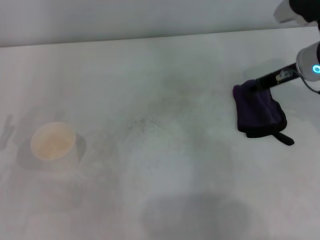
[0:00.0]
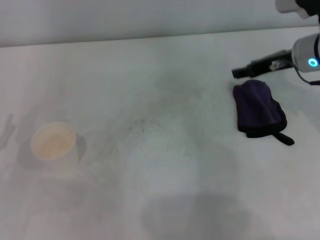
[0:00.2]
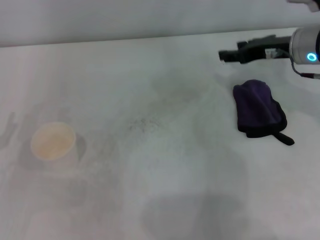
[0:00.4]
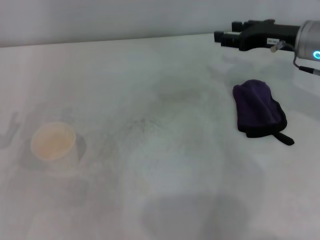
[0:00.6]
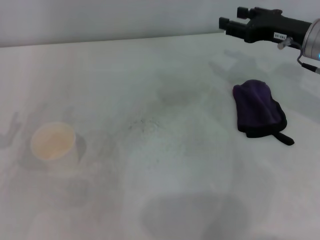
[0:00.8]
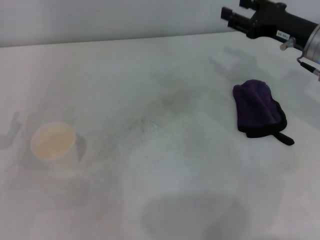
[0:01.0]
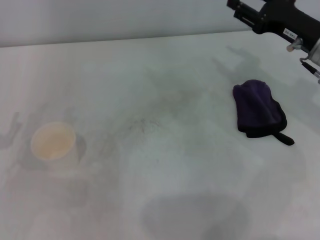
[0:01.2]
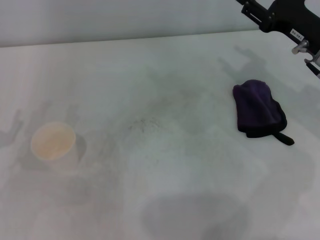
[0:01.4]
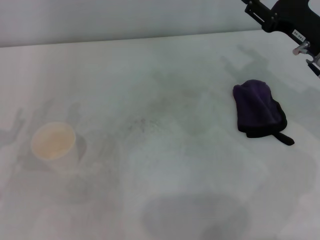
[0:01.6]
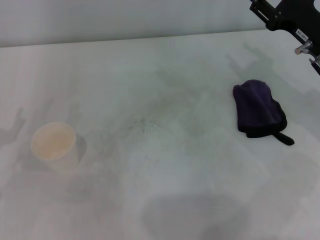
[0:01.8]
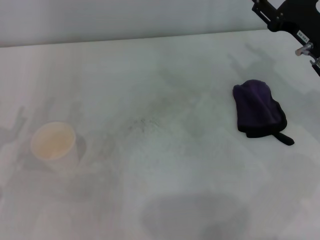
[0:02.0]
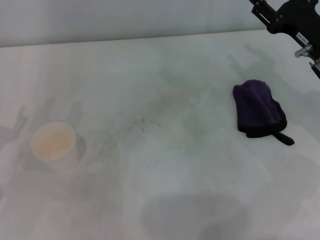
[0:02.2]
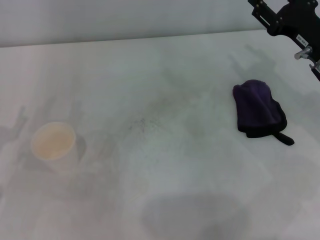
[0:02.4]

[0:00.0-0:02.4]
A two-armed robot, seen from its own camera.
0:00.0 to 0:01.2: The right gripper opens up.
0:01.2 to 0:02.4: There are only small adjustments of the grippers.

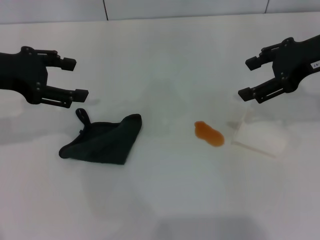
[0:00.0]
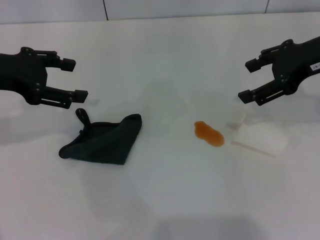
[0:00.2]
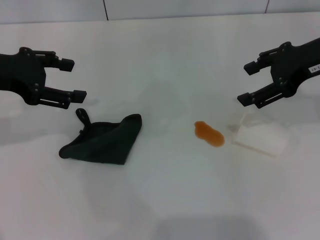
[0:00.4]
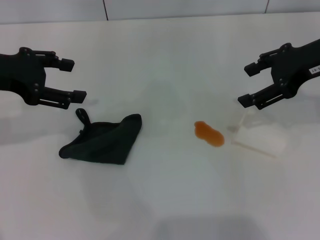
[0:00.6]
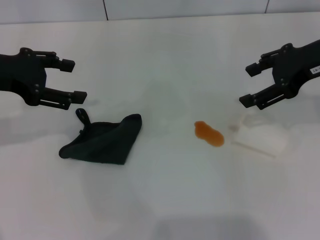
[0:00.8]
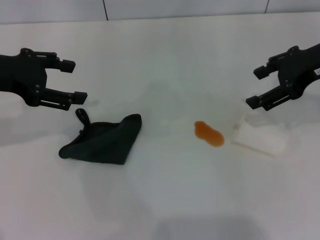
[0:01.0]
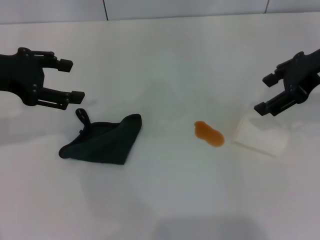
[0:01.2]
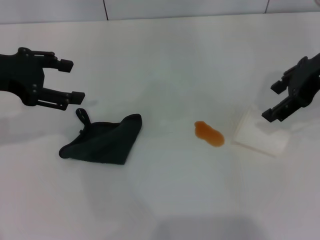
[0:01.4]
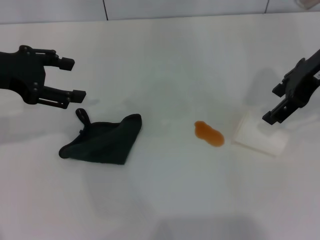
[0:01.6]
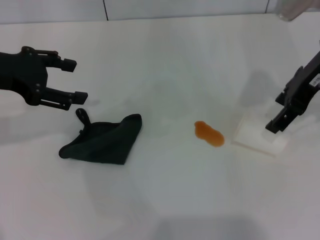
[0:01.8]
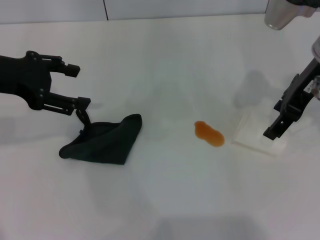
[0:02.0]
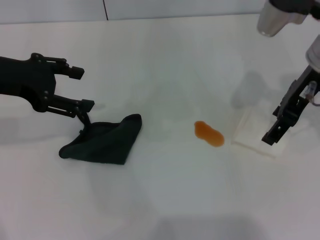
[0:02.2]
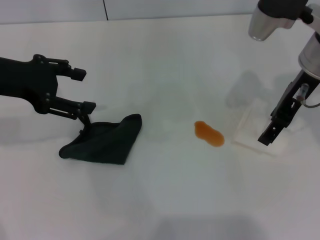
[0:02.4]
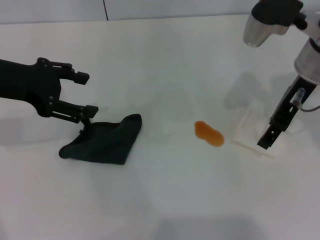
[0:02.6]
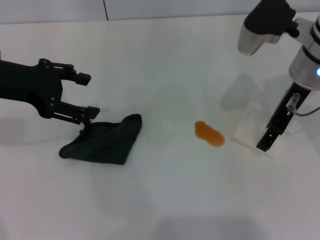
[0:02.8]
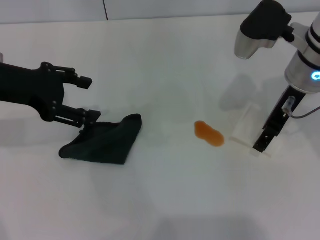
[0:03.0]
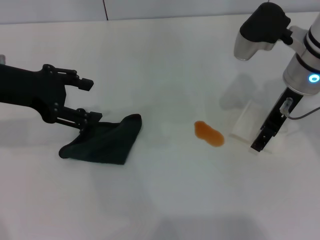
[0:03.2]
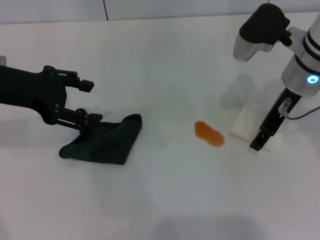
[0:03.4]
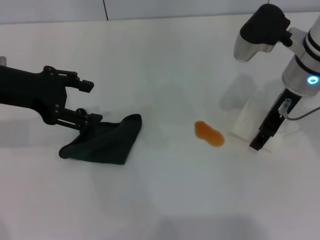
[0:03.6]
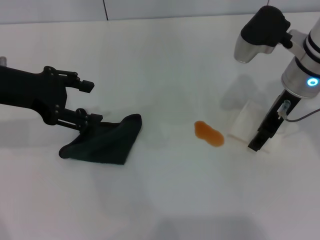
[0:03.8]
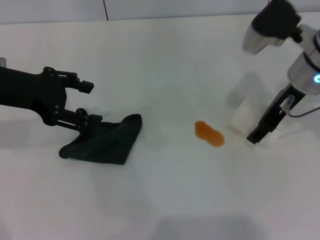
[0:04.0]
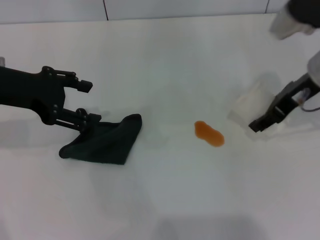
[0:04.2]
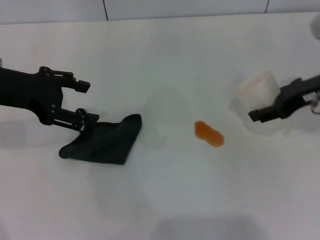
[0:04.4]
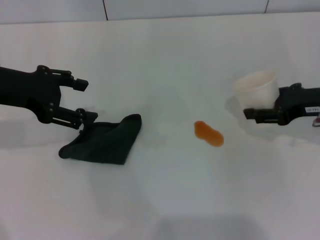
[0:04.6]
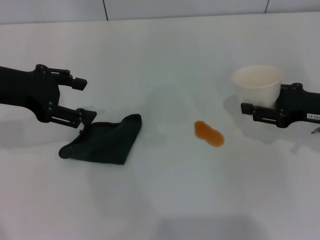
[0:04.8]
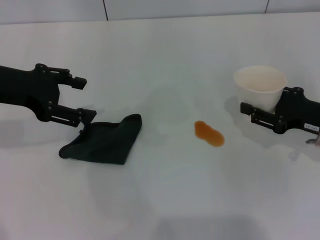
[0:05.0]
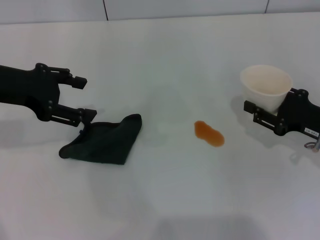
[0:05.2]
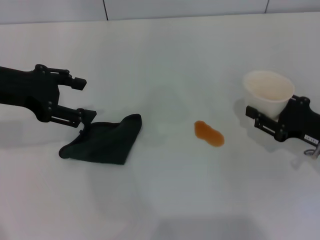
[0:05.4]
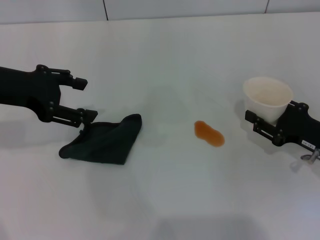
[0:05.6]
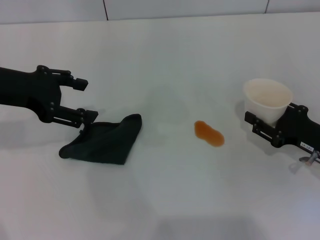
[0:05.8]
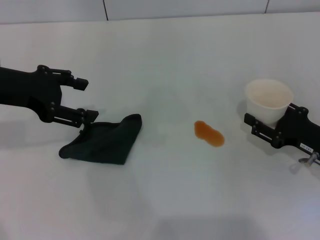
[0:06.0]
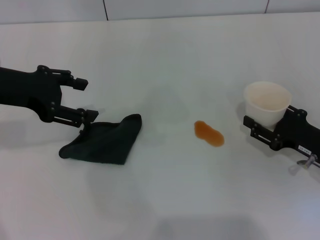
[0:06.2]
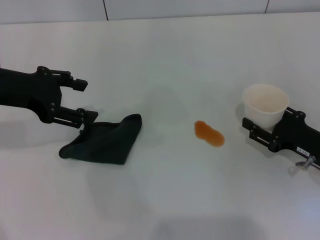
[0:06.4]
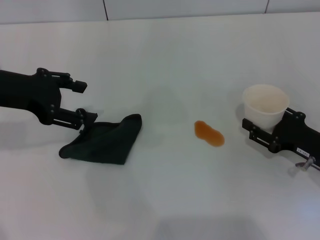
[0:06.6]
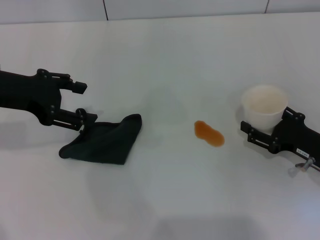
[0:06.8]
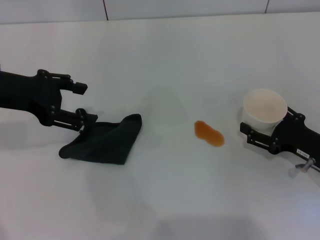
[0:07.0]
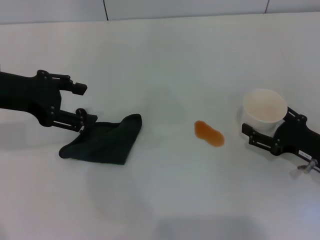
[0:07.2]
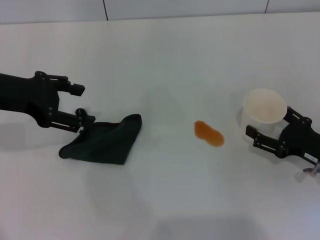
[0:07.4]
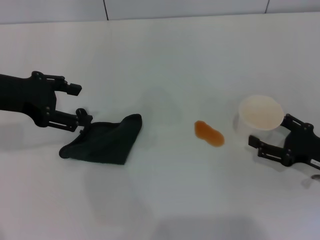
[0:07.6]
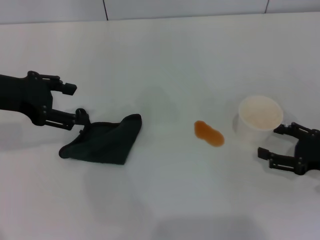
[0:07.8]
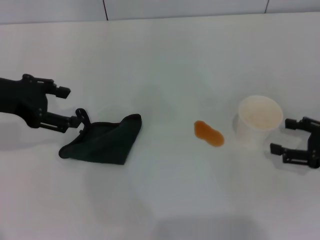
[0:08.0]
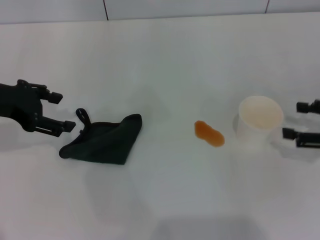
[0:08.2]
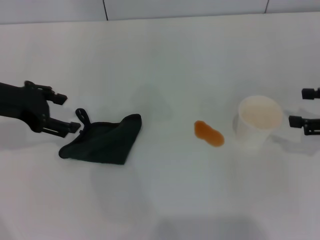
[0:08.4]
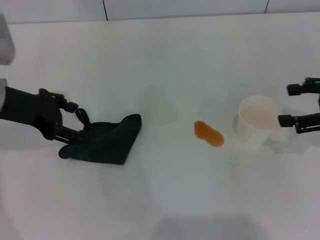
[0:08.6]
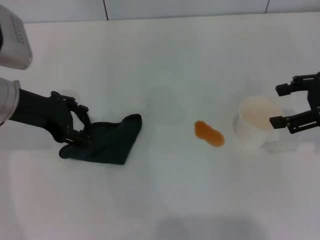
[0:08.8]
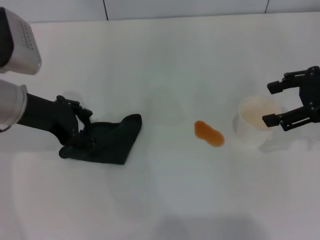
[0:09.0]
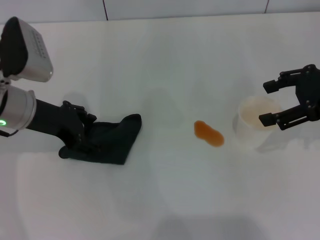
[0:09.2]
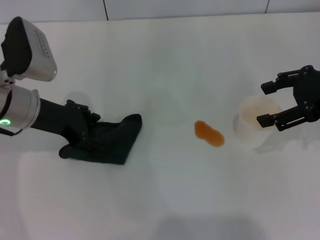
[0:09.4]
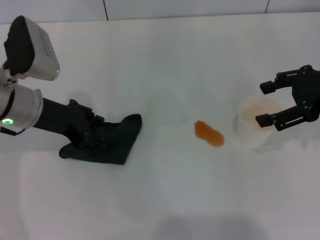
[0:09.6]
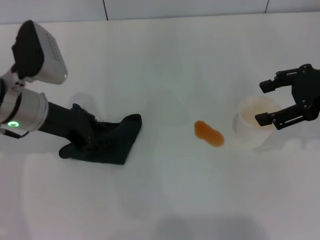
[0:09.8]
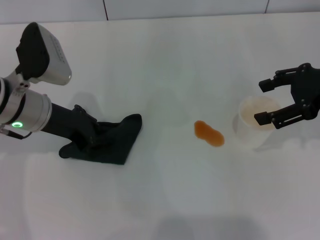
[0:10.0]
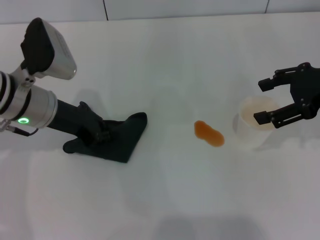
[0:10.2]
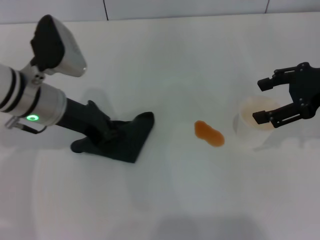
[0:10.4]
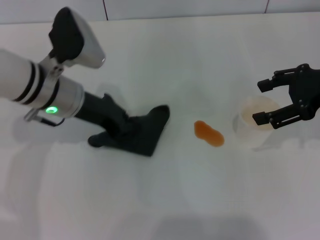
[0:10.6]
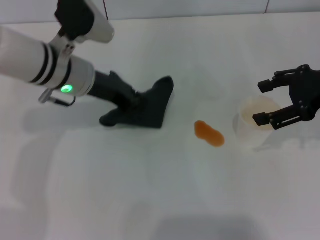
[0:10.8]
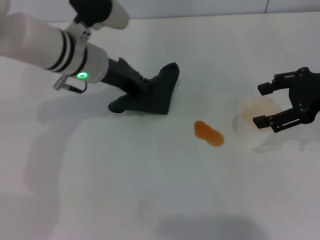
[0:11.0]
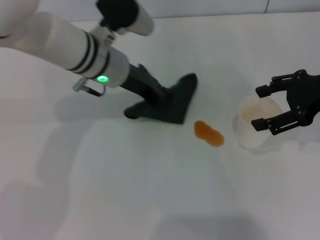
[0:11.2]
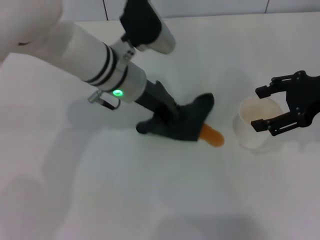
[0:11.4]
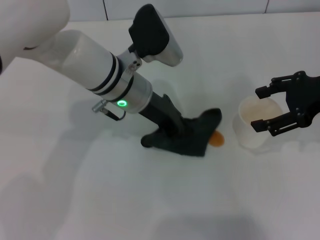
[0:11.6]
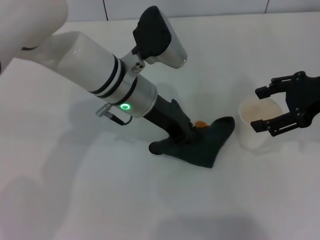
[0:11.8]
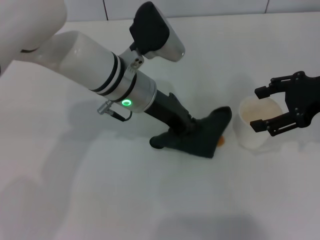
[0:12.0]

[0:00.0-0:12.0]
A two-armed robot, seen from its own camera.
Step, 0:00.0 to 0:03.4: Grasp the paper cup with the right gripper.
Step, 0:03.8 to 0:08.0: Stand the paper cup upright with the right gripper.
Step, 0:08.4 to 0:10.2: Grasp the rag with the left gripper.
0:01.6 to 0:03.0: The right gripper is displaced downward by about 5 cm.
0:03.0 to 0:04.4: The right gripper moves to the right, roughly 10 cm, and closes up.
0:04.4 to 0:06.0: The right gripper is displaced downward and backward by about 15 cm.
0:06.0 to 0:07.6: The right gripper opens.
0:07.6 to 0:09.0: The left gripper moves about 5 cm, while the right gripper heads upward and forward, covering about 20 cm.
0:09.0 to 0:10.4: The left gripper moves some 5 cm, and closes its fingers.
0:10.4 to 0:12.0: The left gripper shifts some 15 cm to the right.

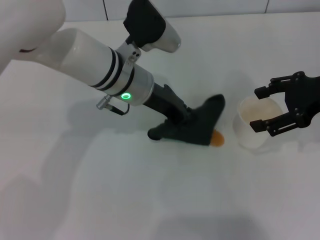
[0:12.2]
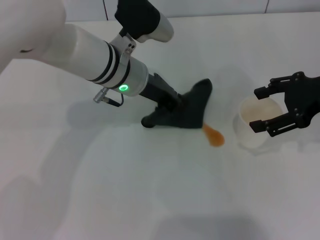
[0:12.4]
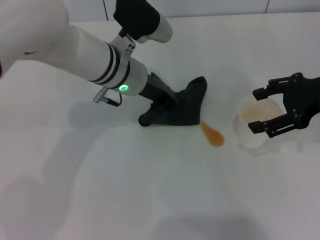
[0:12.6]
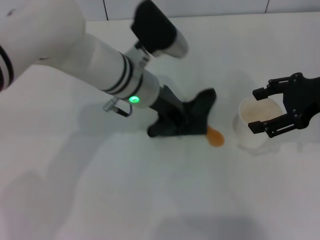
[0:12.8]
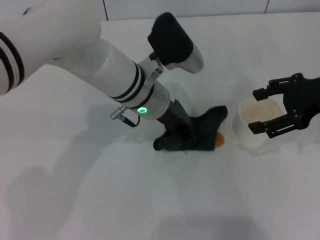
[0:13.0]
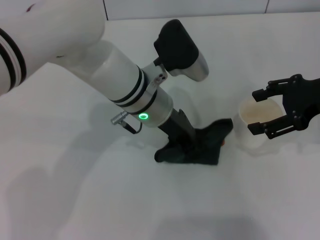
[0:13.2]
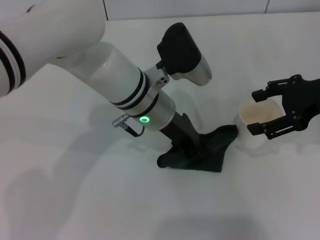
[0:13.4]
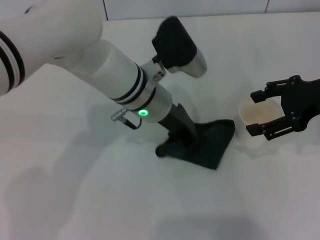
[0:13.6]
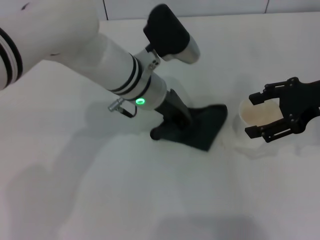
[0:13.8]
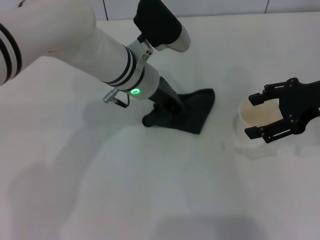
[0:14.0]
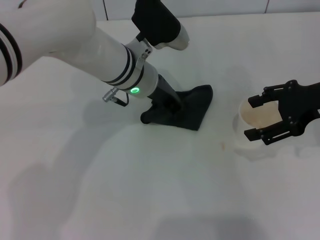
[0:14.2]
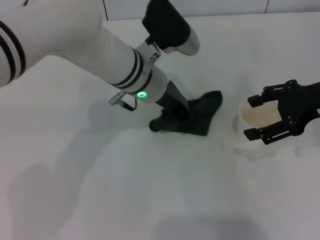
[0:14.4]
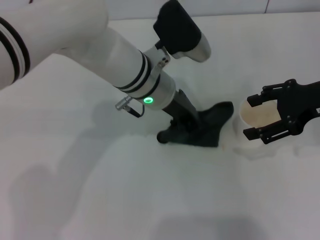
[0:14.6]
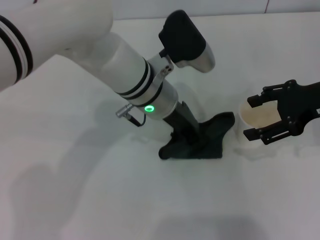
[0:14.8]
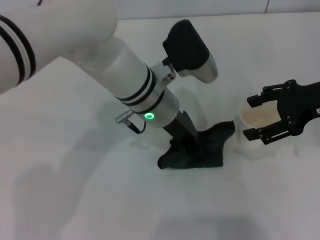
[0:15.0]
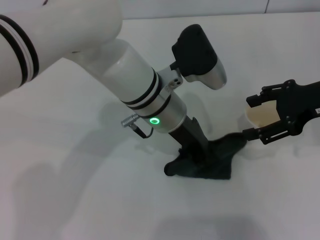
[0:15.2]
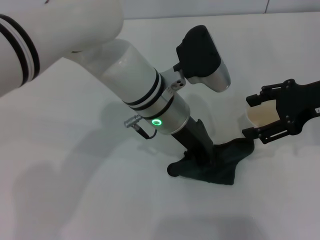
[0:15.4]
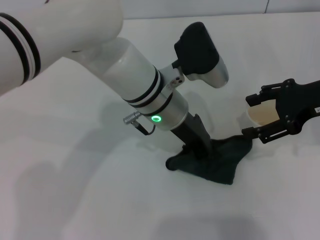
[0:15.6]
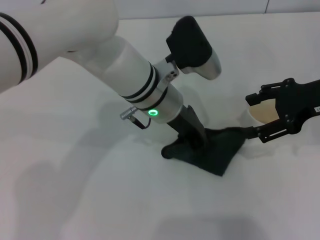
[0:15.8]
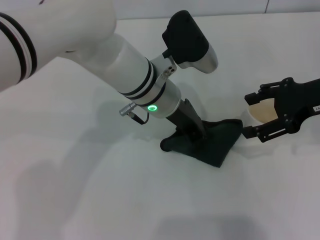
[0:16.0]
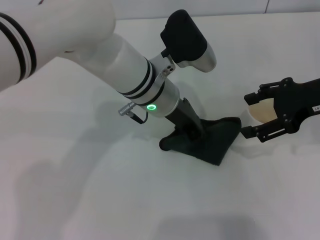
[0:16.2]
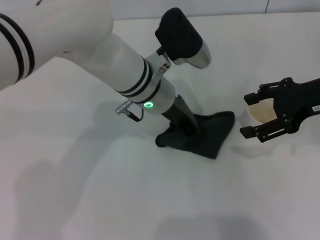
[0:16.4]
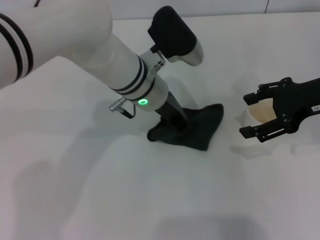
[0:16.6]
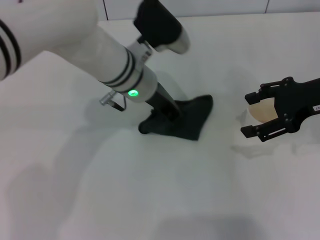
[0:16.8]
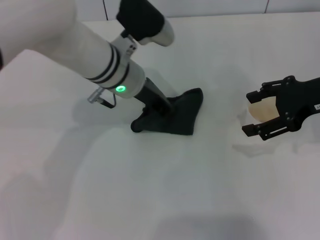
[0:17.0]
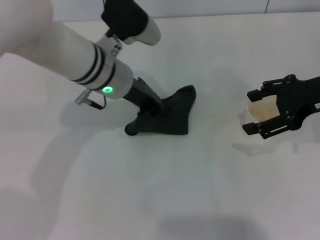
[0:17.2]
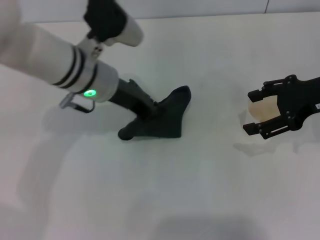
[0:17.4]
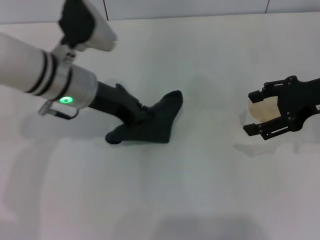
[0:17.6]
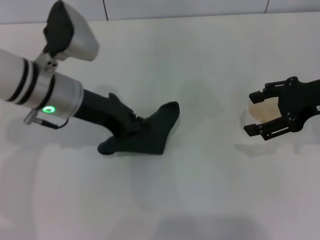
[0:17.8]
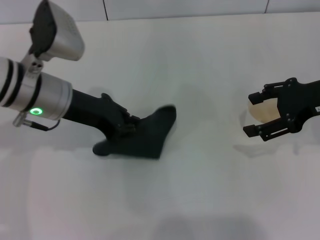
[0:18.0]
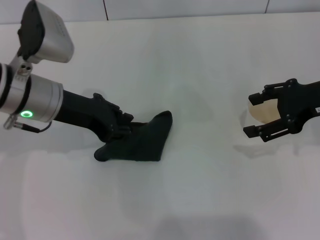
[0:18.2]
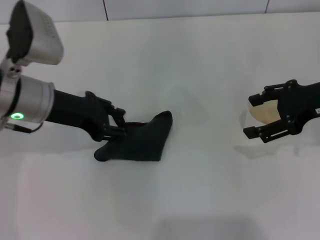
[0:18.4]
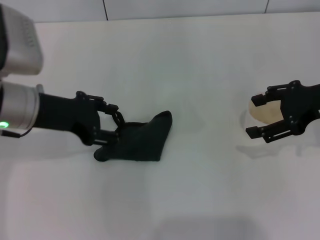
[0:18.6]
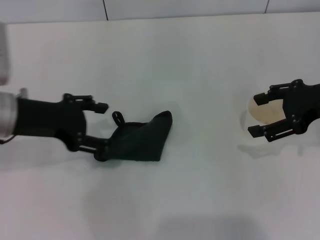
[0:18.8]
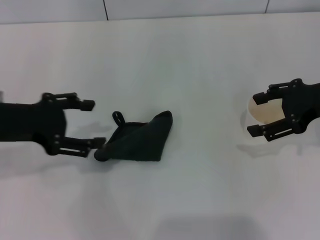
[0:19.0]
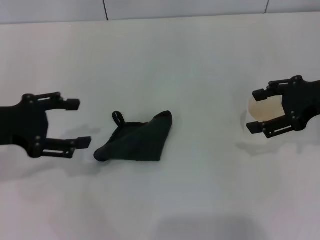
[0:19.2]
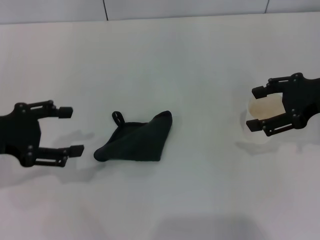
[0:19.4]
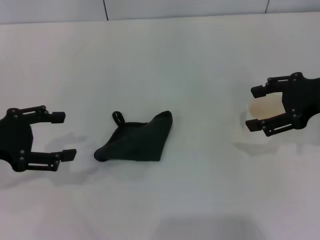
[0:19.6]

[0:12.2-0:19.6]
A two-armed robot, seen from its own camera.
Step, 0:12.2 to 0:17.4: Wipe the stains off the table with the left gripper.
Step, 0:17.6 to 0:18.8: Place the rag on the table with the left gripper.
0:12.2 to 0:15.2: The grippers stay close to where they were, moving slightly.
0:15.2 to 0:16.6: The grippers move only a little.
0:16.6 to 0:18.2: The left gripper heads to the left, covering approximately 15 cm.
0:18.2 to 0:19.6: The left gripper is displaced to the left and backward by roughly 15 cm, and opens.
